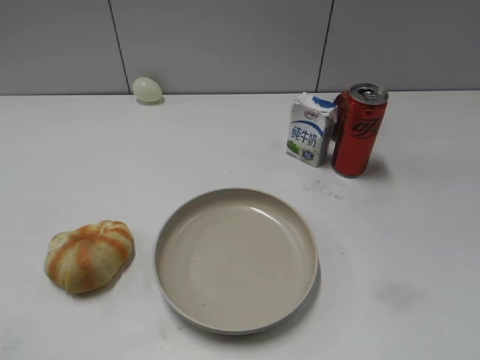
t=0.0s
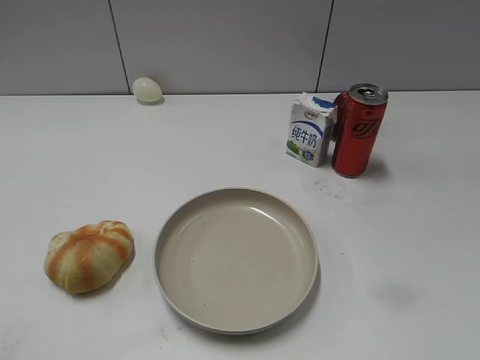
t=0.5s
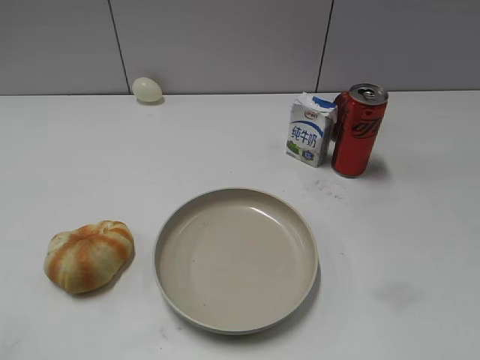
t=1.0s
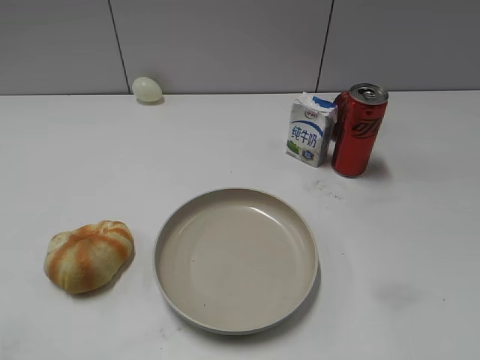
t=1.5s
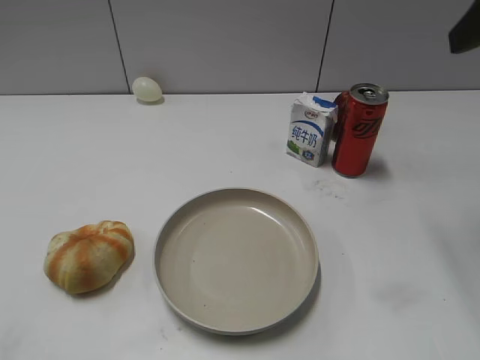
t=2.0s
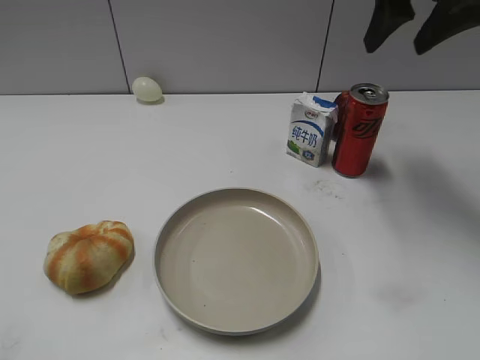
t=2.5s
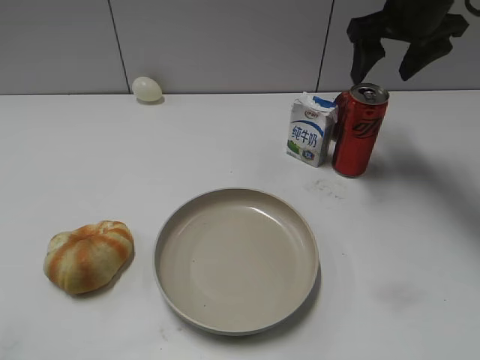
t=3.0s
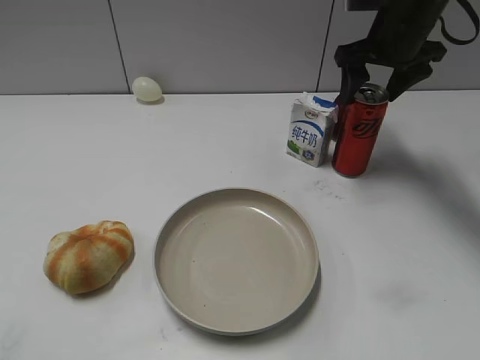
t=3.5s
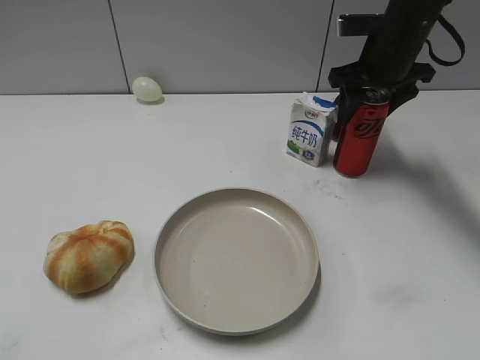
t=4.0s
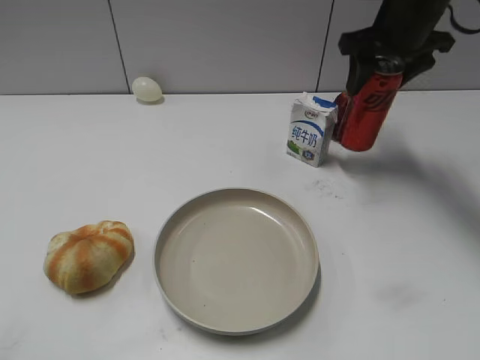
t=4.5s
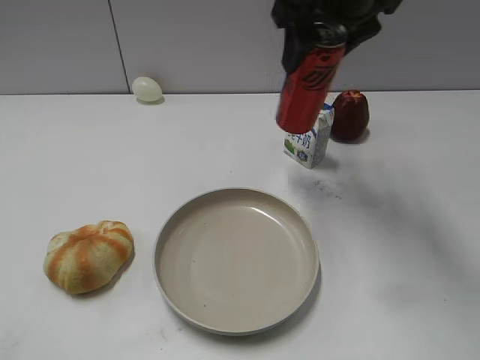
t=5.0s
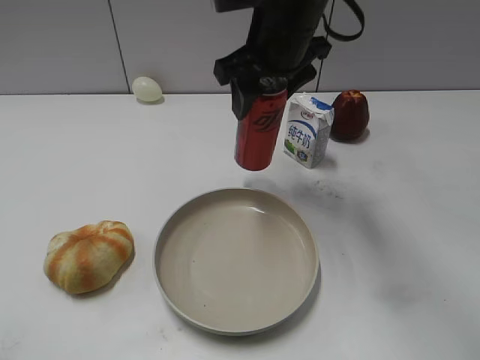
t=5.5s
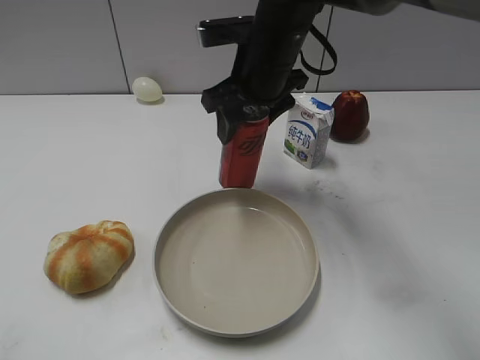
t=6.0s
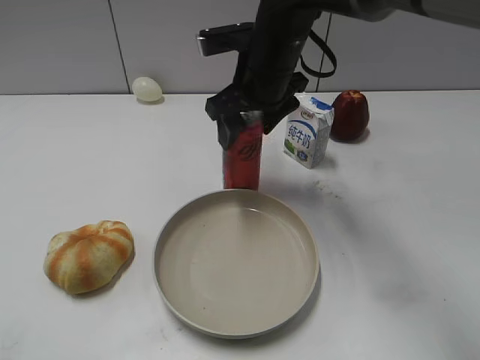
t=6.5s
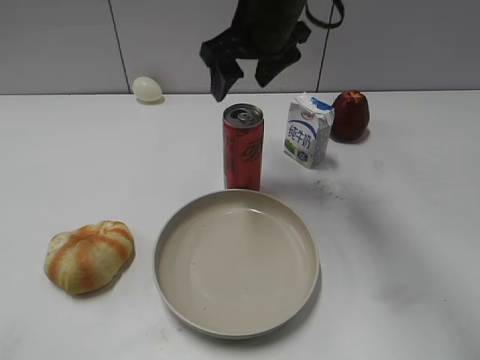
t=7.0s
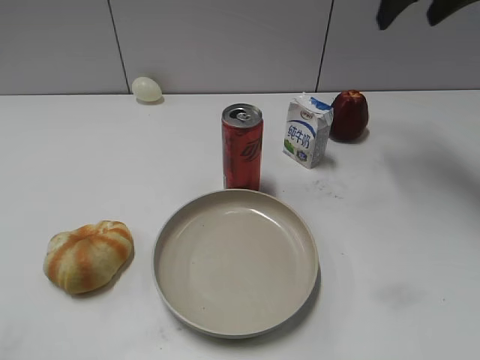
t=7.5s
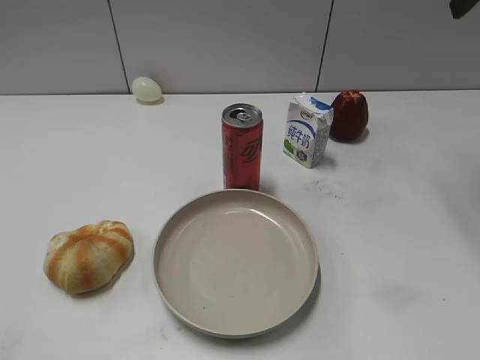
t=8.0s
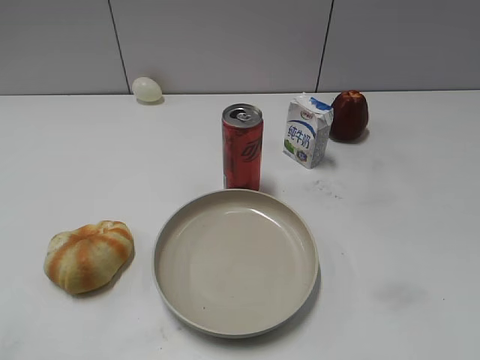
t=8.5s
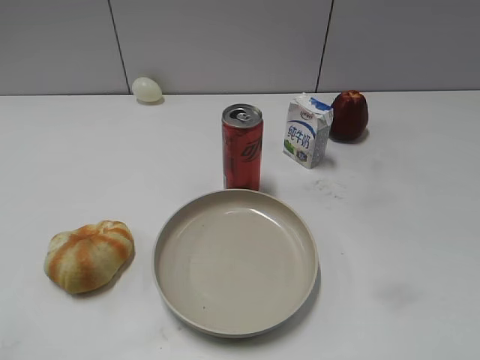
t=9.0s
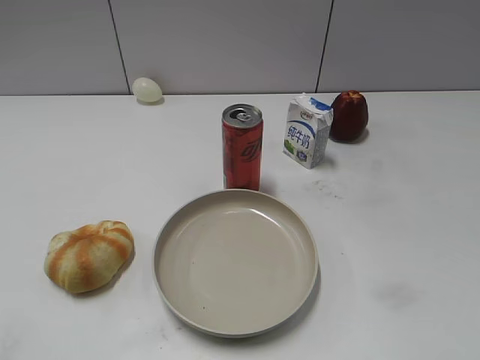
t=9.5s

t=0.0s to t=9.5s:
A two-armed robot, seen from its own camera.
Step, t=1.0s to t=4.0s: Grasp the cola with right gripper.
Step, t=4.5s to t=6.5s: Place the cola on the table with right gripper.
t=2.0s to t=4.0s: The right gripper shifts about 25 cm forward and downward, and opens, then closes again.
t=4.0s to t=5.5s: The right gripper heads to the left and backward, covering some 15 cm.
t=5.5s to t=7.5s: The right gripper shifts about 20 cm to the right and upward, and opens up.
t=7.5s to t=9.5s: The right gripper is displaced backward by about 40 cm, and closes up.
